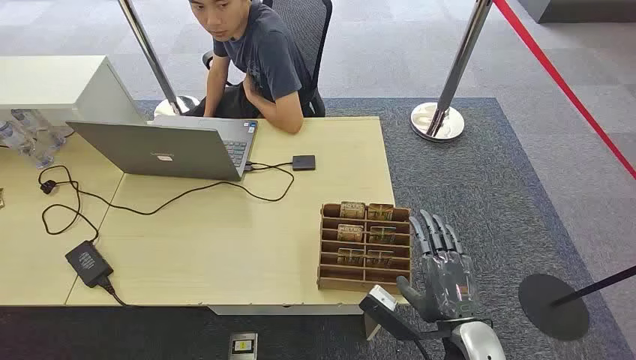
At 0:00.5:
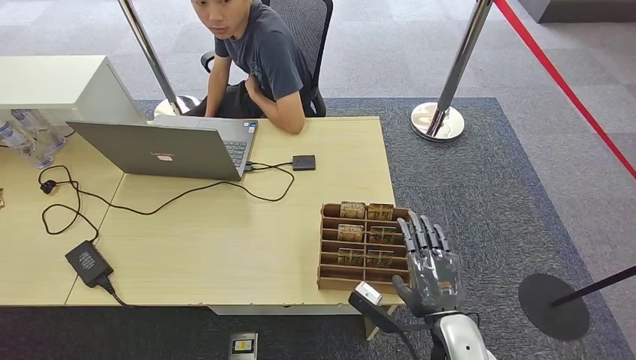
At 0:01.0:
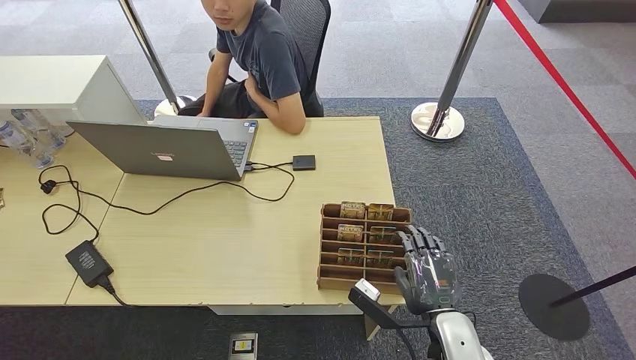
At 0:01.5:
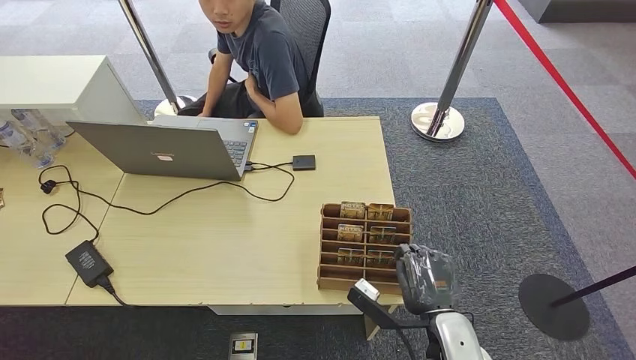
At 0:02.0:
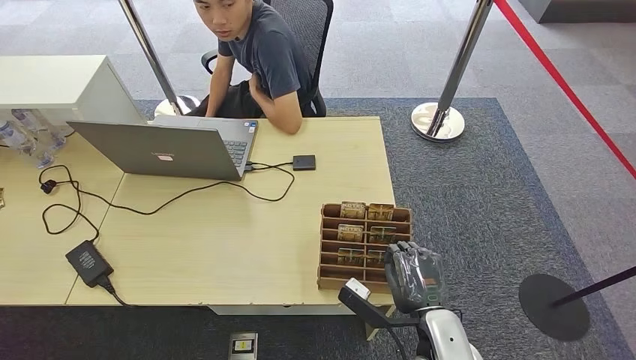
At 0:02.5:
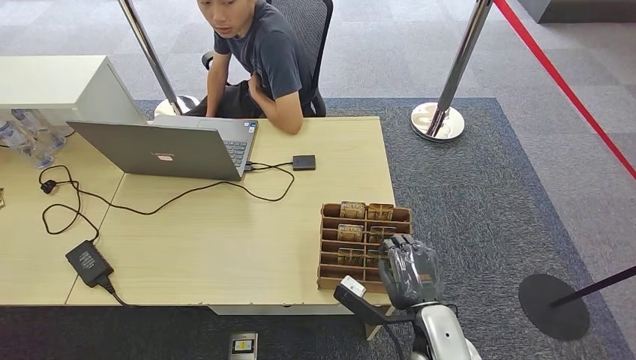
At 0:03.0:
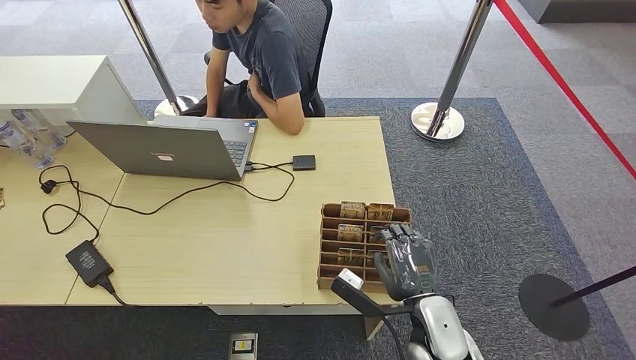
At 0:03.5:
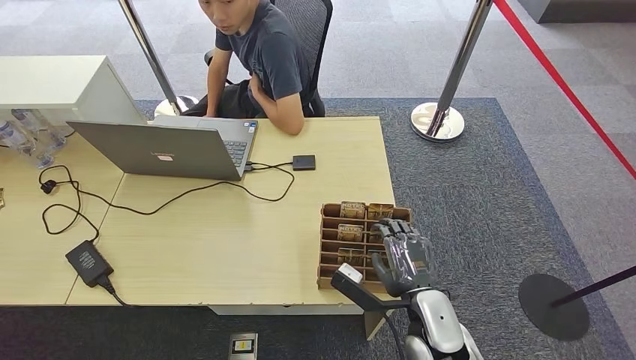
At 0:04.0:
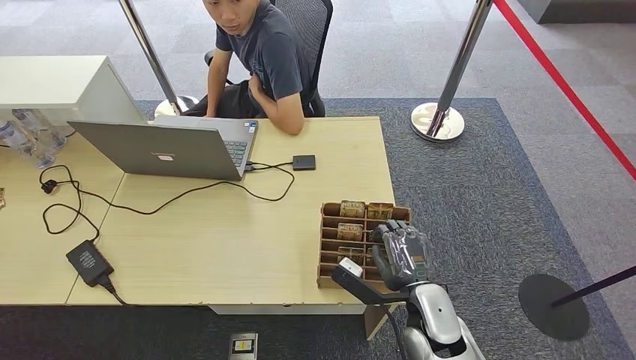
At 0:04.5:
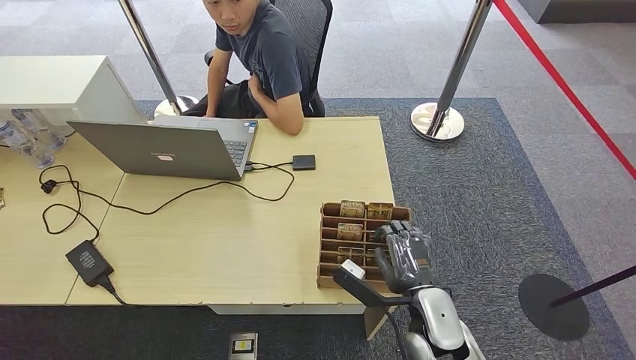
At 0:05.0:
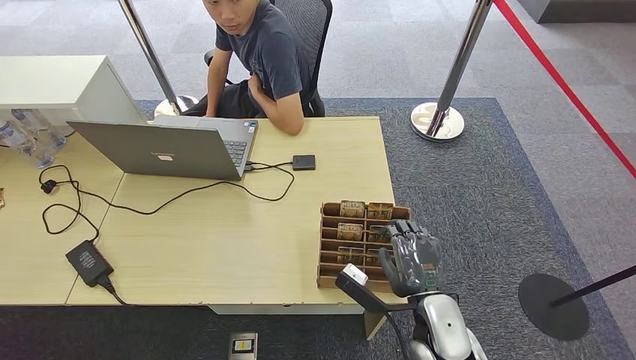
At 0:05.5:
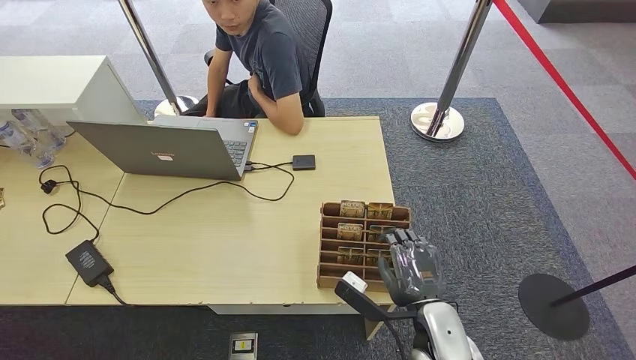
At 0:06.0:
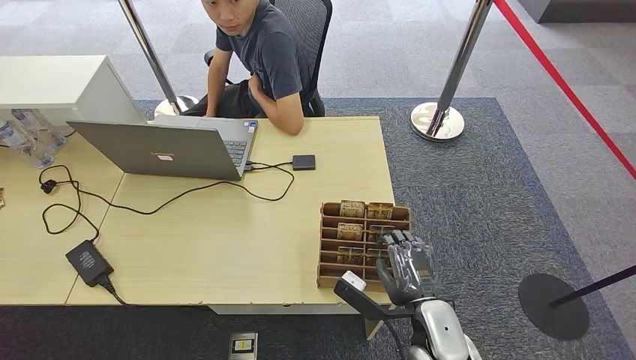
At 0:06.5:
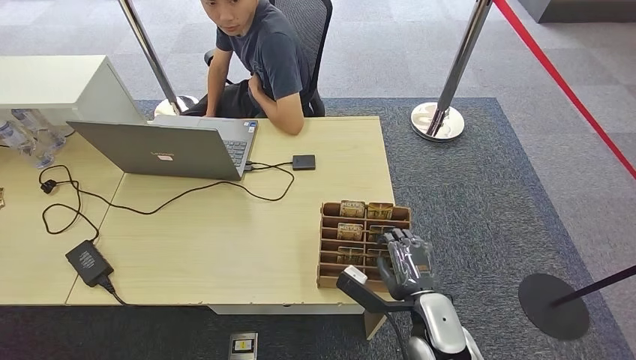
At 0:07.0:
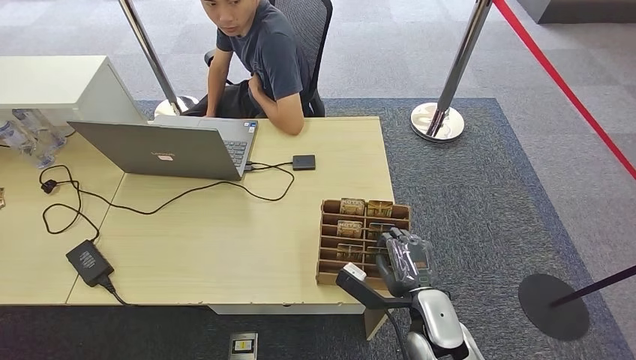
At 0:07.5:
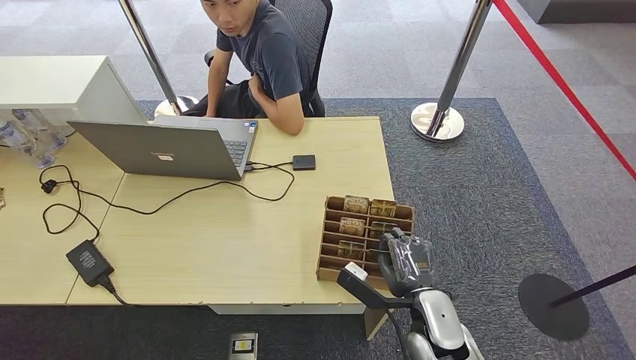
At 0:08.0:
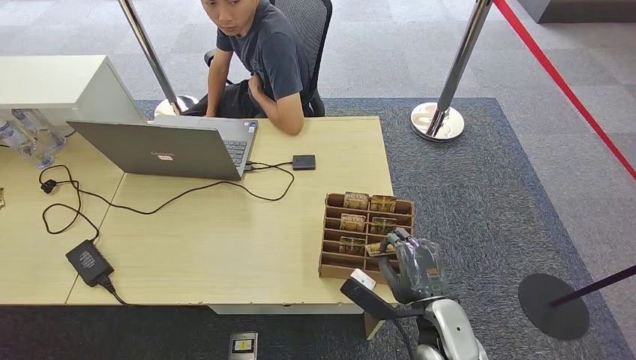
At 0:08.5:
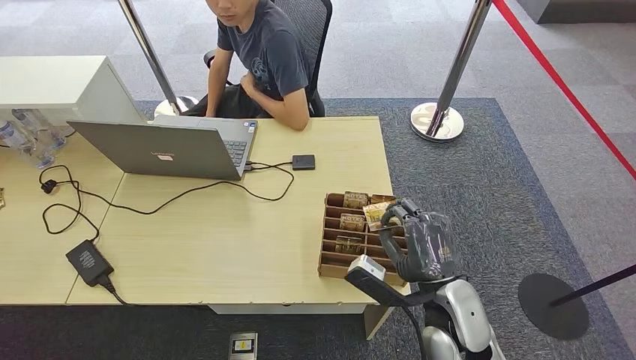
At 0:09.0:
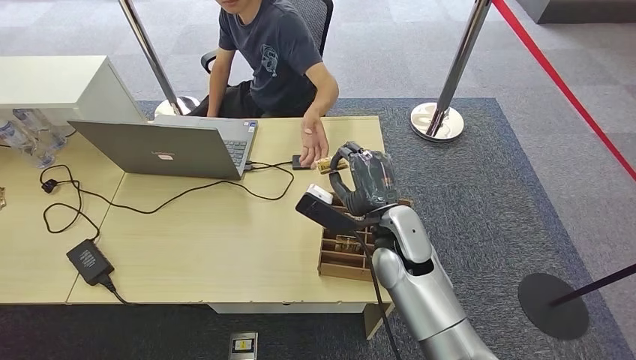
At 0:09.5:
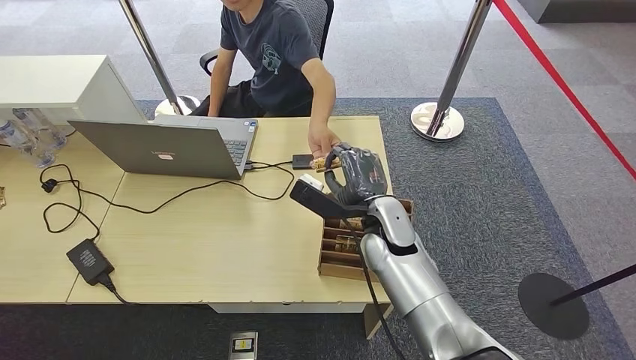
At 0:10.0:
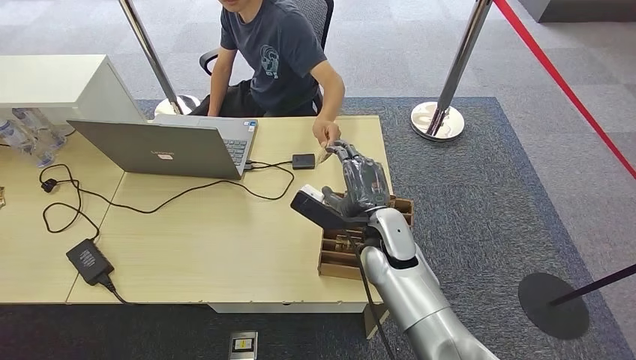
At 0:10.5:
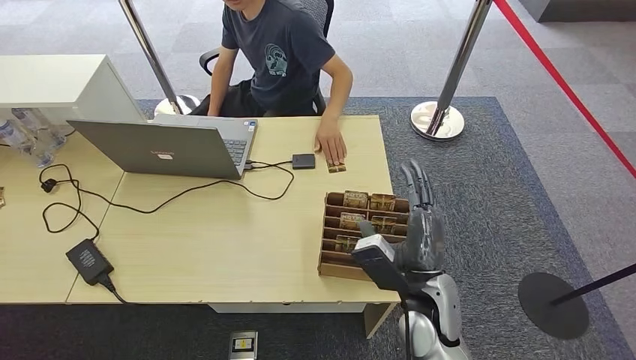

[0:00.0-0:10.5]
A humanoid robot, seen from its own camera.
Step, 0:00.0 to 0:08.0: Pick up the key card from the card box.
Step, 0:08.5 to 0:10.5: Hand the key card to the target.
0:02.0 to 0:06.5: The hands stay close to where they were, moving slightly.
0:06.5 to 0:08.5: The right hand heads upward, covering approximately 5 cm.
0:08.5 to 0:10.5: The right hand travels forward and back again, roughly 15 cm each way.

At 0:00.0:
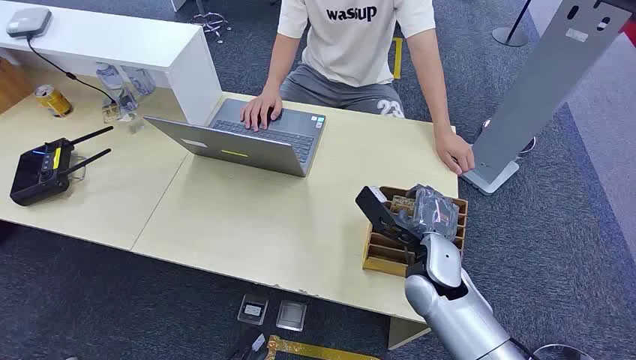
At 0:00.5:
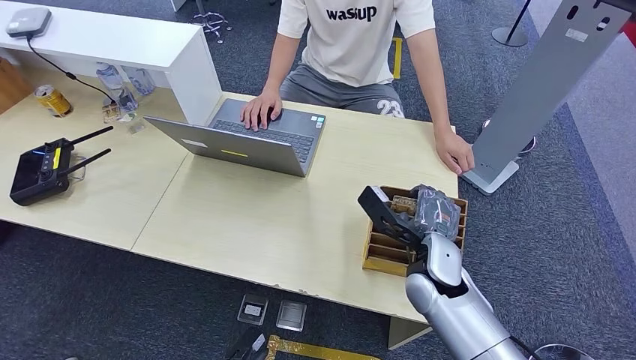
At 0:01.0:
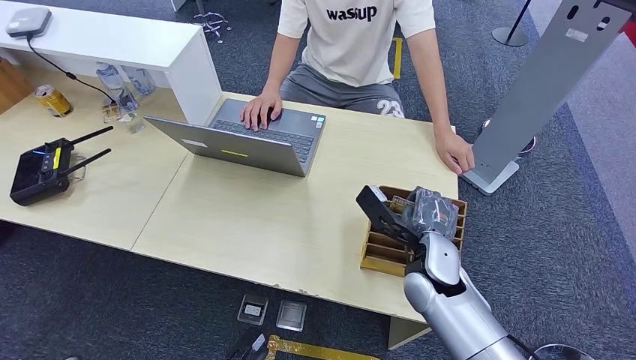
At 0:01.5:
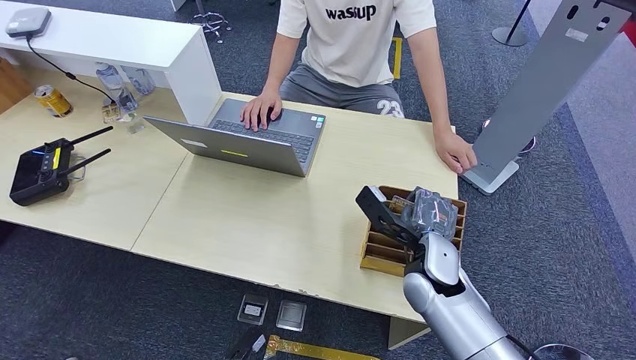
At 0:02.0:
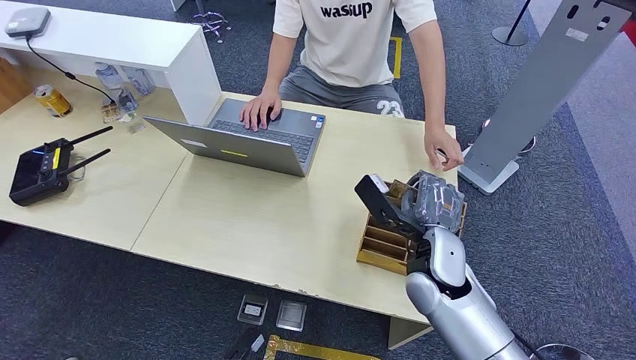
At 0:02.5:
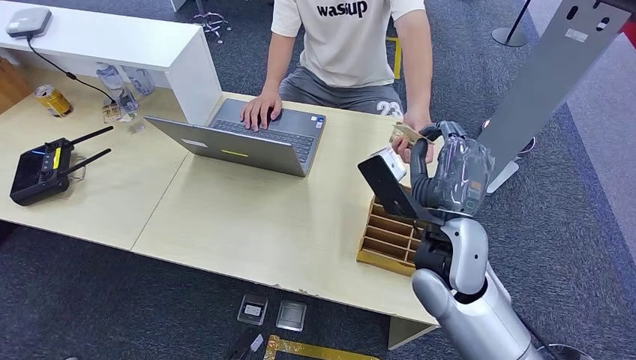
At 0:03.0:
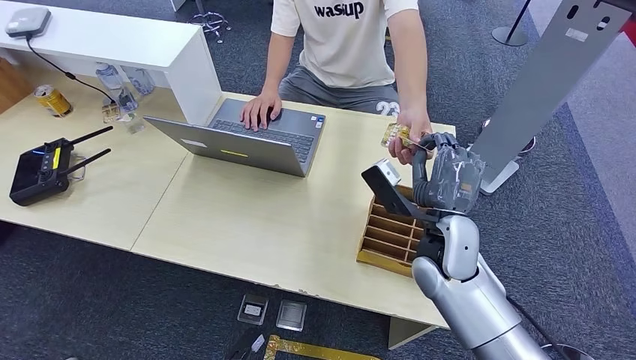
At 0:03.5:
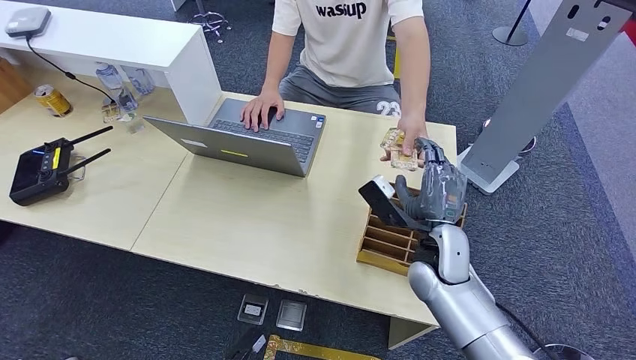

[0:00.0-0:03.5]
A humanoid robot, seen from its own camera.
Step, 0:00.0 to 0:01.5: Pick up the key card from the card box.
Step, 0:02.0 to 0:03.5: Hand the key card to the target.
0:02.0 to 0:03.5: The right hand travels upward and back again, roughly 5 cm each way.
